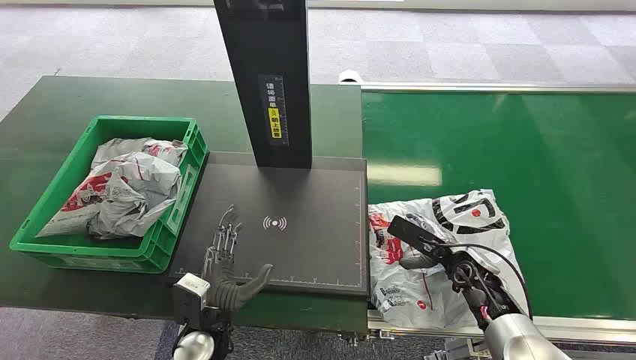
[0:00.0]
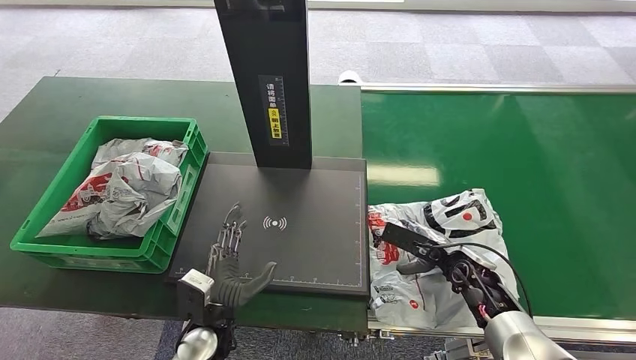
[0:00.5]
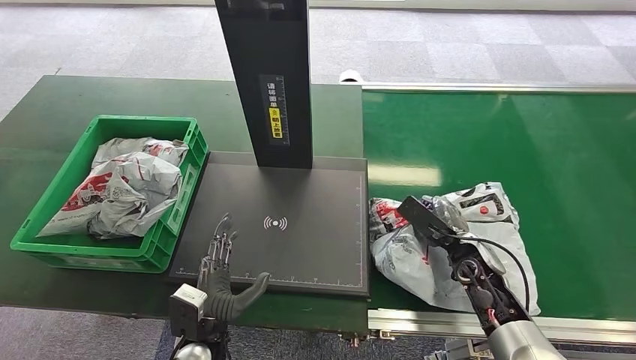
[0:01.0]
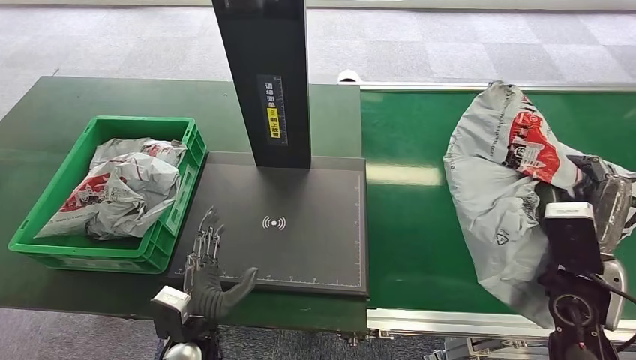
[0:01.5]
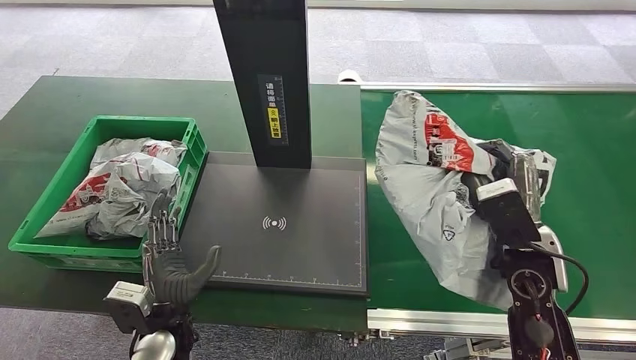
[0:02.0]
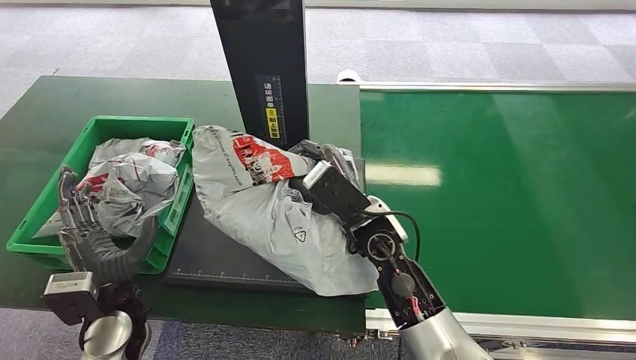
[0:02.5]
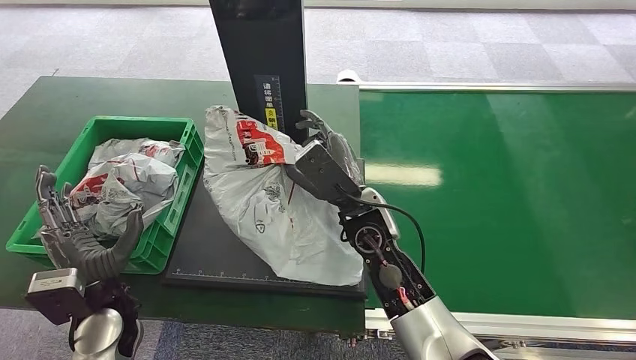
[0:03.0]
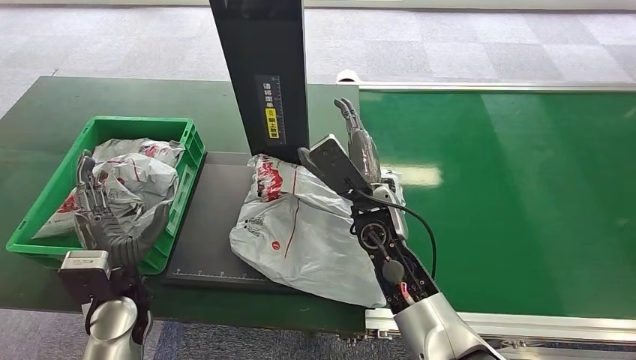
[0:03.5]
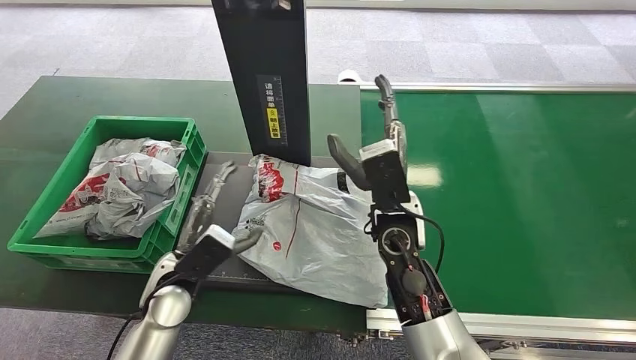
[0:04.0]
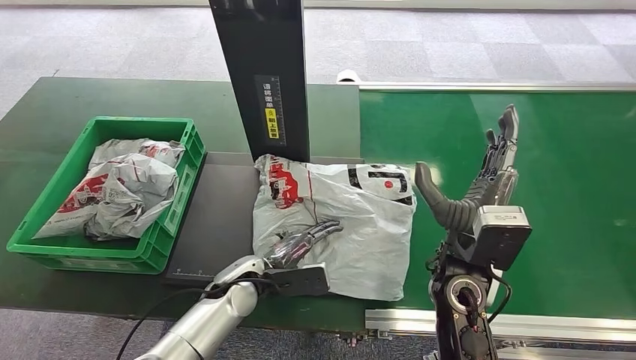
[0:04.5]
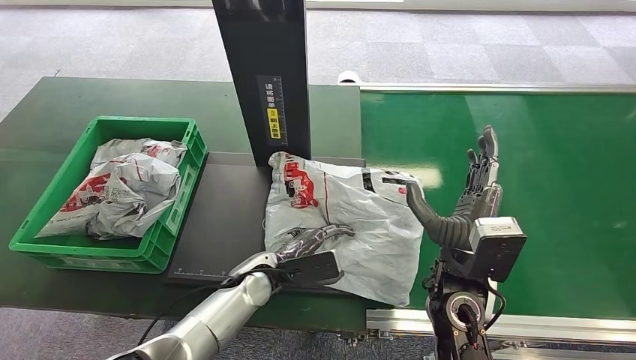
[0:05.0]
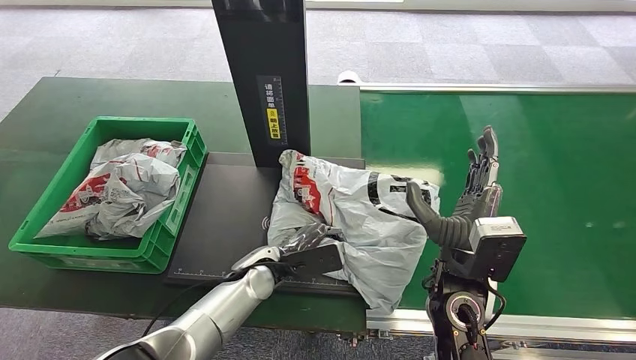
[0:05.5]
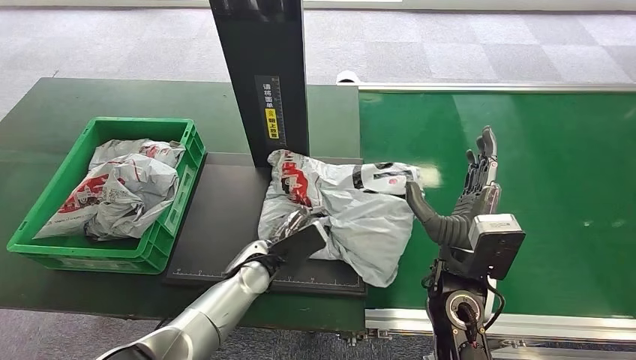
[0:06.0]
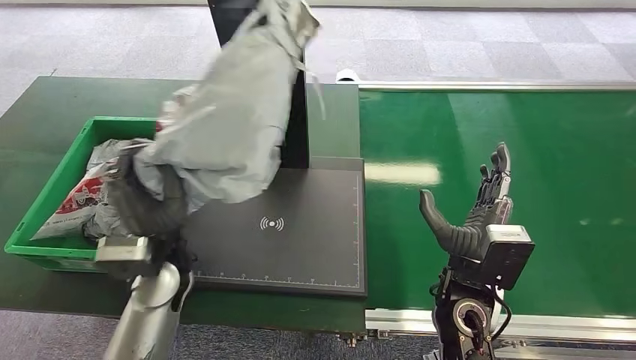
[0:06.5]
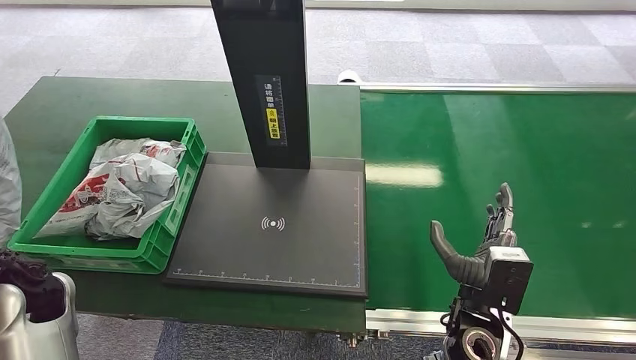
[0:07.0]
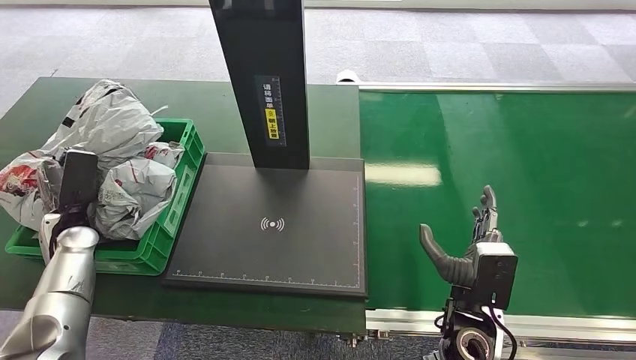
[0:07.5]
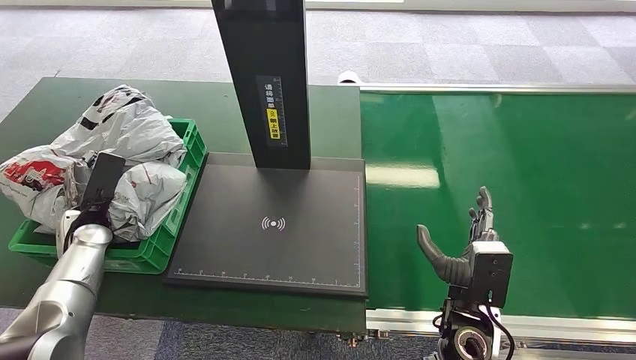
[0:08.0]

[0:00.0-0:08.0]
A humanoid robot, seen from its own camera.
Task of the whole recording: Weigh the package on the weighing device and place it in the left basket.
Step, 0:00.0 to 0:01.5: Pick up the package from the conveyor belt.
Step, 0:02.5 to 0:04.0: Place the package onto the inbound machine.
Step, 0:04.5 to 0:06.0: Pick up the package from the inbound machine.
Step, 0:07.0 to 0:08.0: Place the package into the parcel locker.
